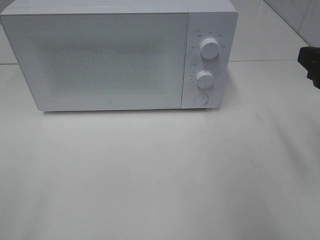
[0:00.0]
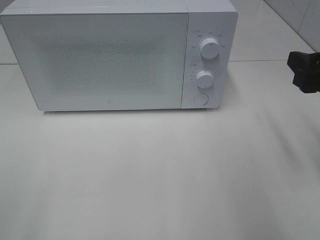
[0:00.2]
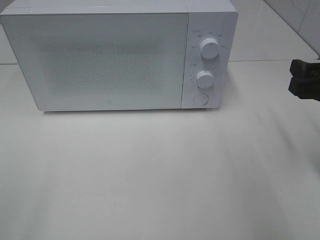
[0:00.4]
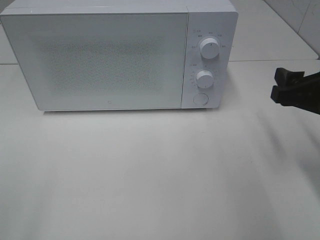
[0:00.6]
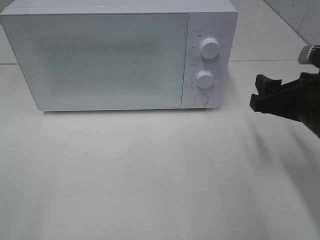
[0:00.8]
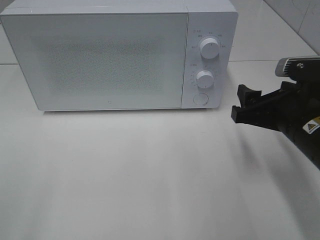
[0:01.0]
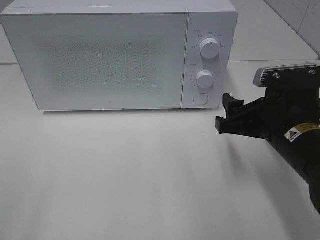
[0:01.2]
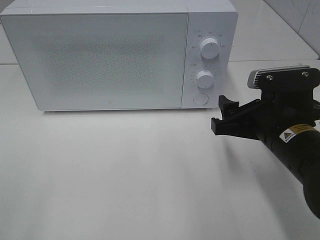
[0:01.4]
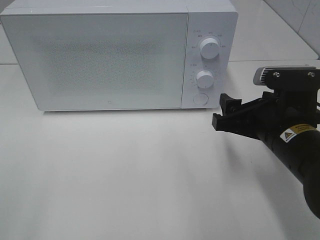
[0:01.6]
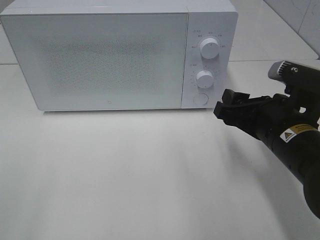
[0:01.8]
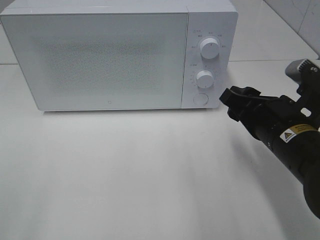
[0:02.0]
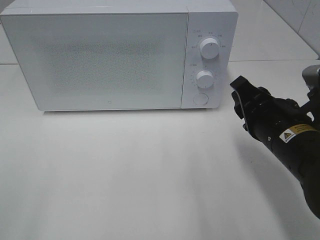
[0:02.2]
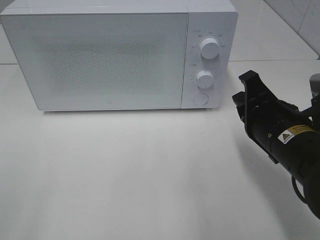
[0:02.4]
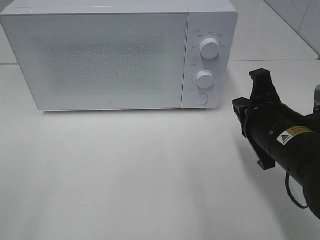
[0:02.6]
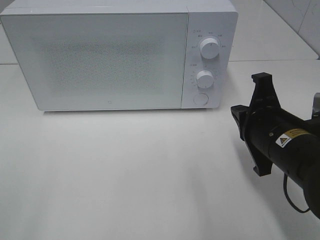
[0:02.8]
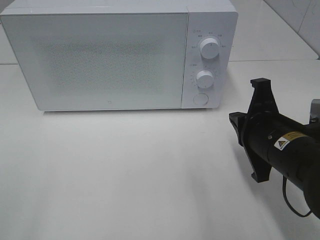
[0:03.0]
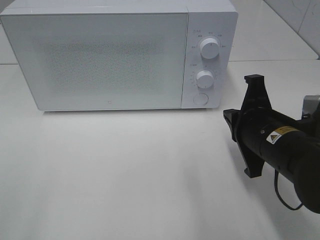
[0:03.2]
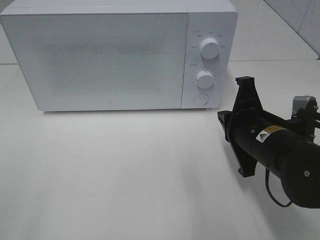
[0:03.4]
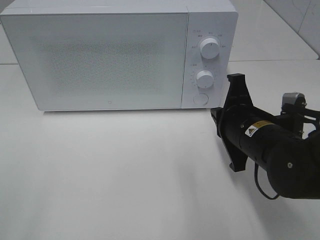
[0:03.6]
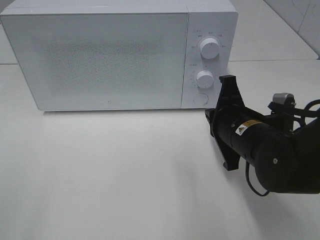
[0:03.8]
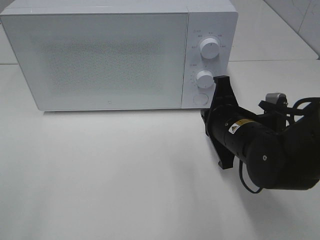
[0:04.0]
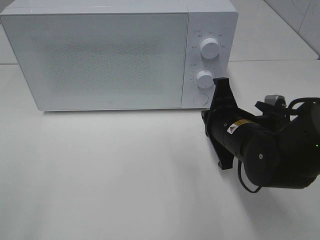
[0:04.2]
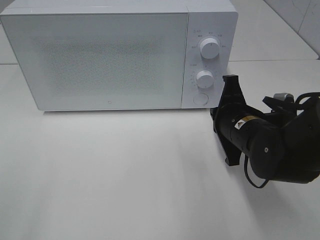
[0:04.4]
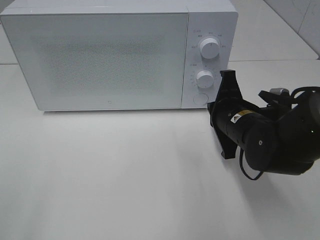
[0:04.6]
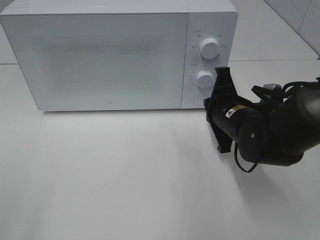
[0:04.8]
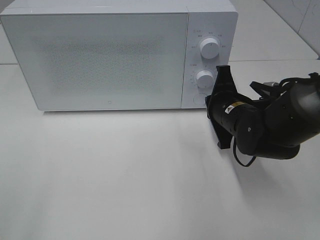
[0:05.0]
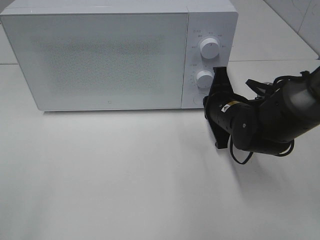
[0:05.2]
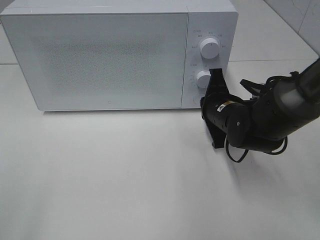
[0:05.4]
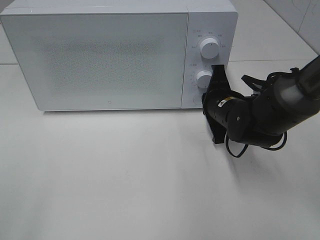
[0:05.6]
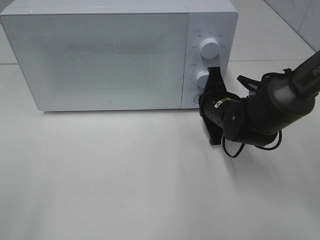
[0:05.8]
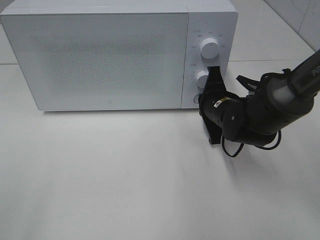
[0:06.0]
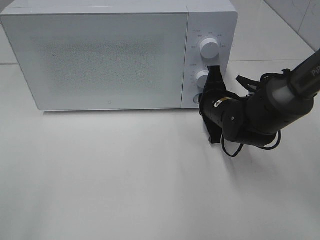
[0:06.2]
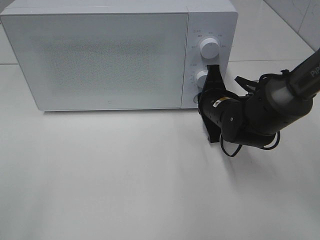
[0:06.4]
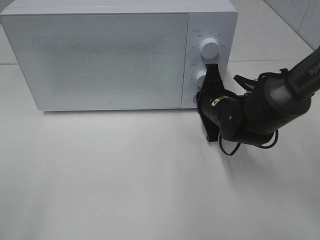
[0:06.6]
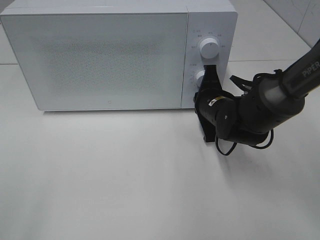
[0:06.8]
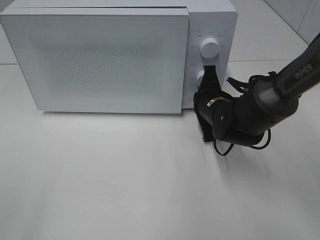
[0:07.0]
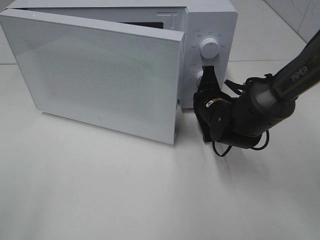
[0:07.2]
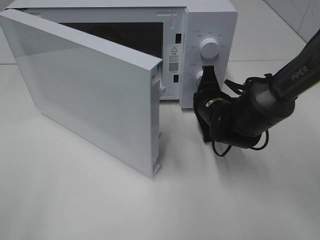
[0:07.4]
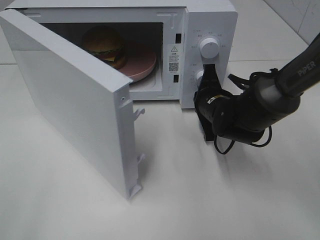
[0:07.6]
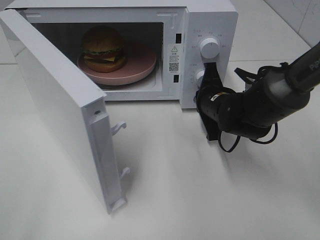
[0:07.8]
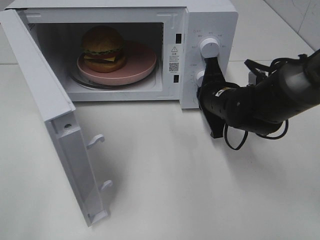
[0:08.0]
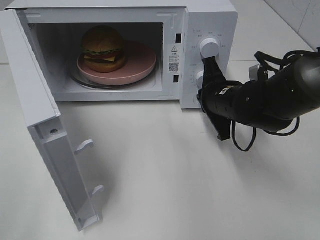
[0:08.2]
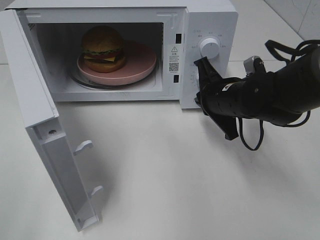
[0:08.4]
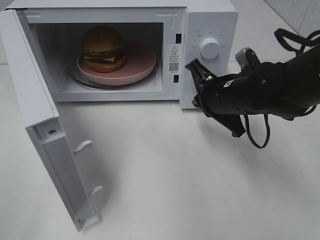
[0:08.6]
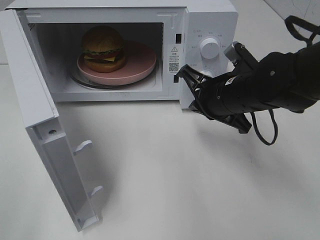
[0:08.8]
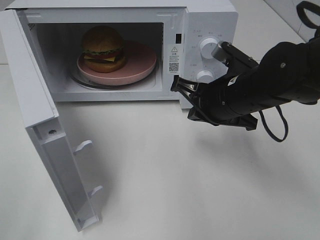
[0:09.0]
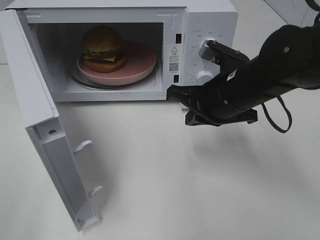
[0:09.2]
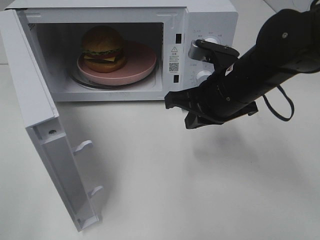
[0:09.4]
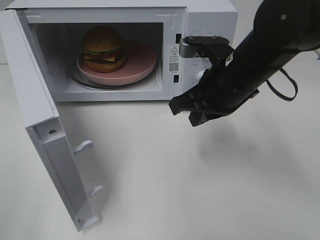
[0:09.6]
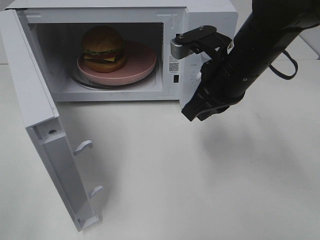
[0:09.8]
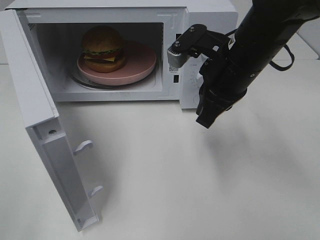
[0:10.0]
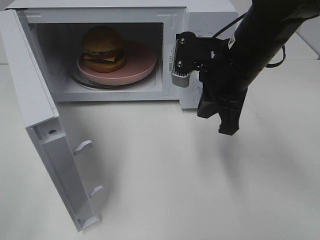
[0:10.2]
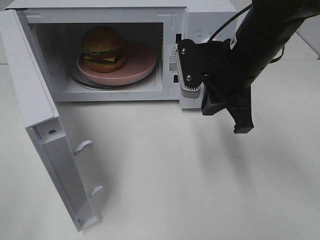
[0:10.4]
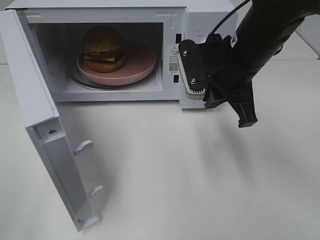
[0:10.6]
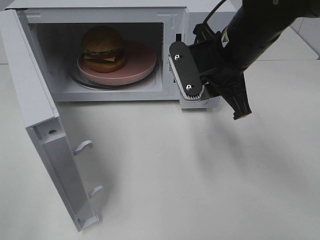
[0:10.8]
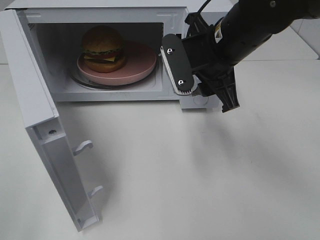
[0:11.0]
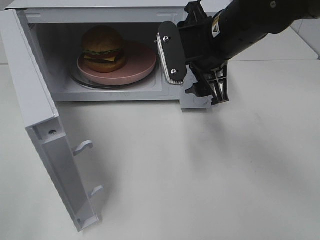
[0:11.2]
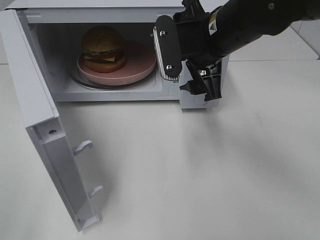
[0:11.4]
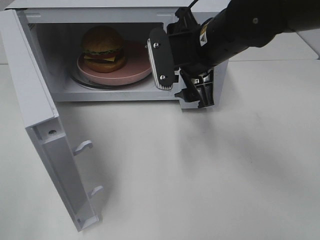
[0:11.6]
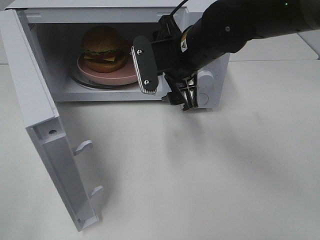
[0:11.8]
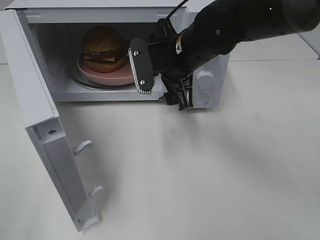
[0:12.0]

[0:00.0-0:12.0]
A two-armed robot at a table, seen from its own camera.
Task of the whole recording: Heat the burger.
Step, 0:00.0 to 0:08.2: Right hand: press the switch.
0:00.0 to 0:01.6: The right gripper shifts about 15 cm downward and to the left.
0:01.6 to 0:03.0: The right gripper closes its fingers.
0:03.0 to 0:04.4: The right gripper goes some 5 cm forward.
0:04.4 to 0:06.0: The right gripper moves forward, roughly 10 cm.
0:07.6 to 0:09.0: The right gripper travels upward and backward by about 10 cm.
0:09.0 to 0:10.4: The right gripper goes about 5 cm upward.
0:10.4 to 0:12.0: The right gripper is displaced to the left by some 5 cm, and opens.

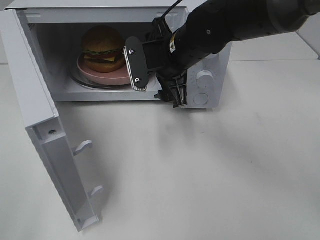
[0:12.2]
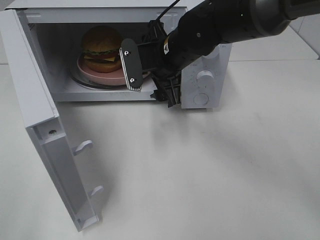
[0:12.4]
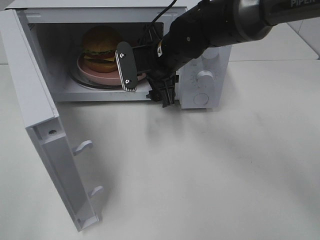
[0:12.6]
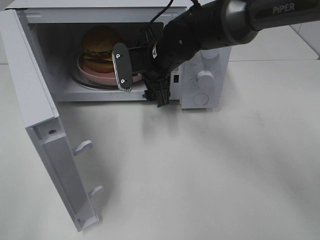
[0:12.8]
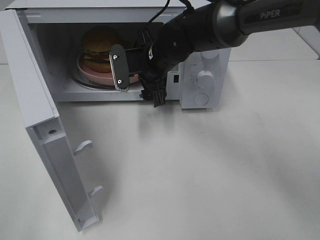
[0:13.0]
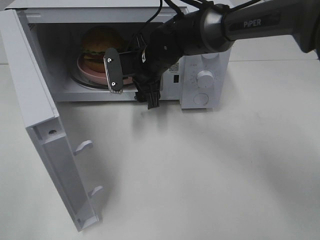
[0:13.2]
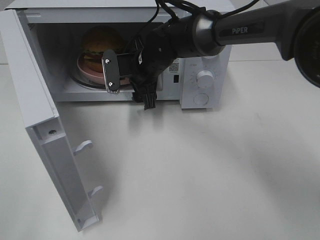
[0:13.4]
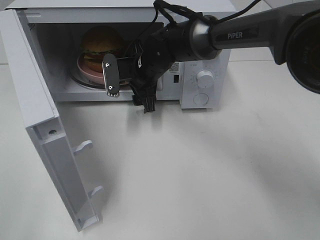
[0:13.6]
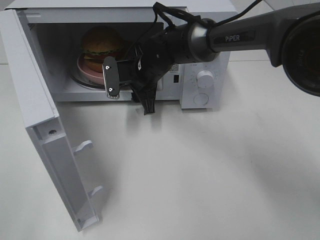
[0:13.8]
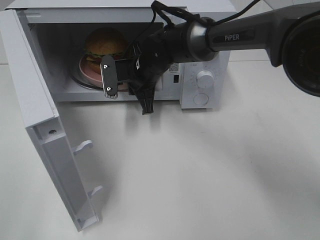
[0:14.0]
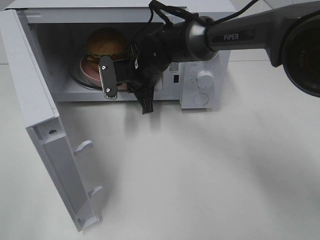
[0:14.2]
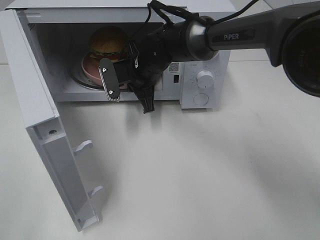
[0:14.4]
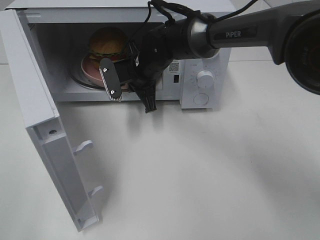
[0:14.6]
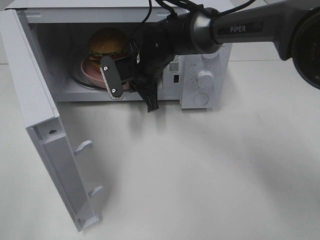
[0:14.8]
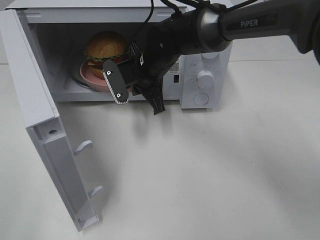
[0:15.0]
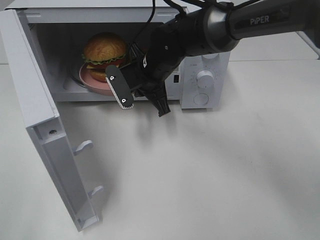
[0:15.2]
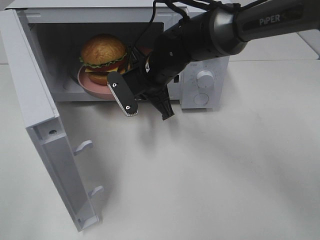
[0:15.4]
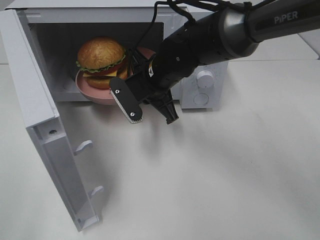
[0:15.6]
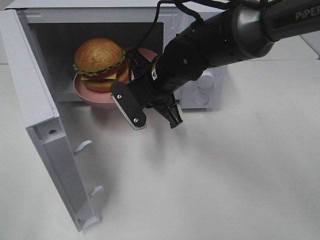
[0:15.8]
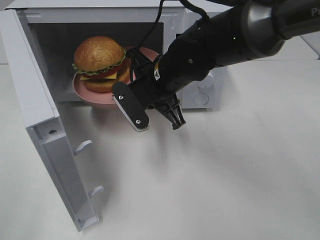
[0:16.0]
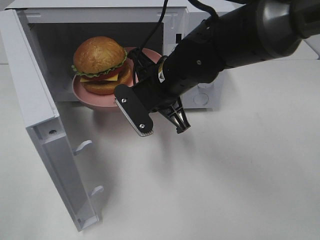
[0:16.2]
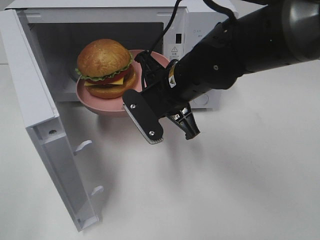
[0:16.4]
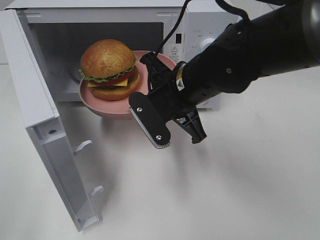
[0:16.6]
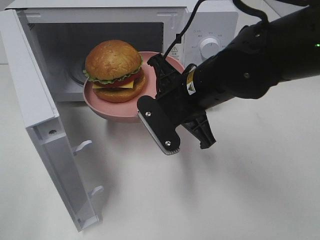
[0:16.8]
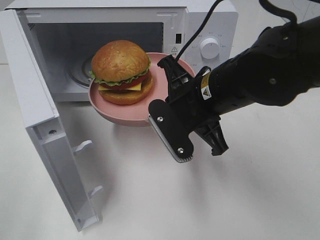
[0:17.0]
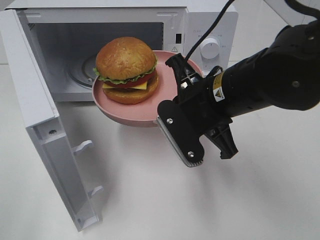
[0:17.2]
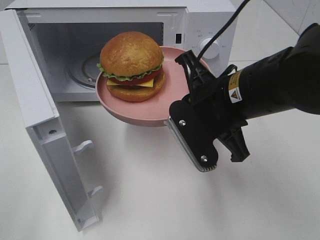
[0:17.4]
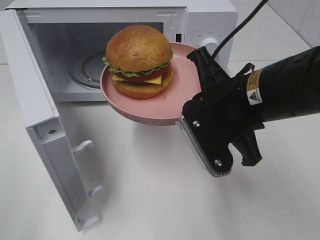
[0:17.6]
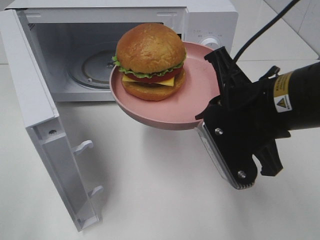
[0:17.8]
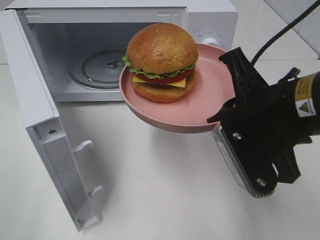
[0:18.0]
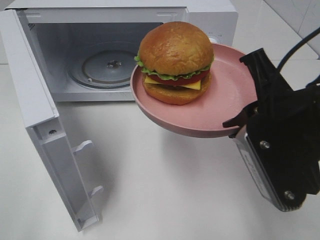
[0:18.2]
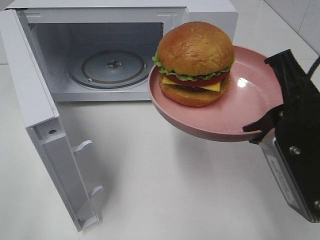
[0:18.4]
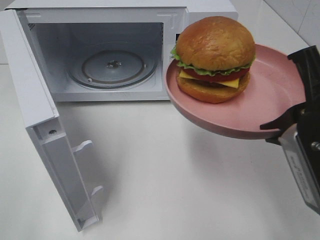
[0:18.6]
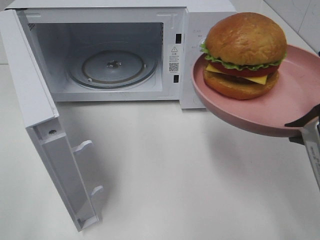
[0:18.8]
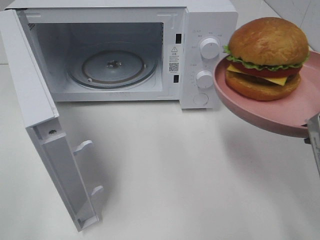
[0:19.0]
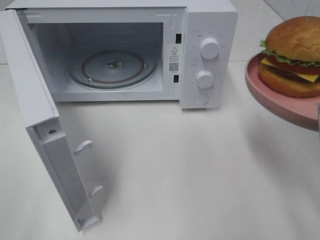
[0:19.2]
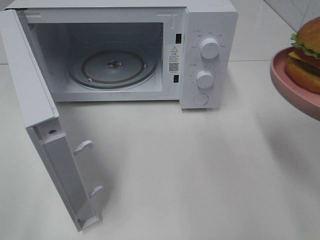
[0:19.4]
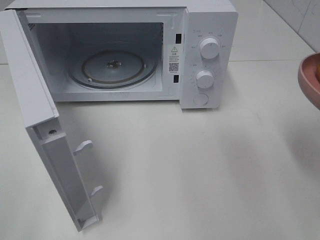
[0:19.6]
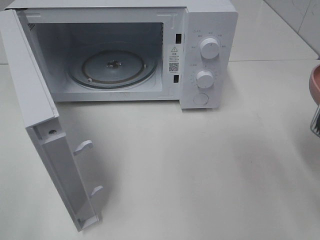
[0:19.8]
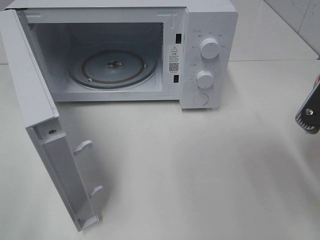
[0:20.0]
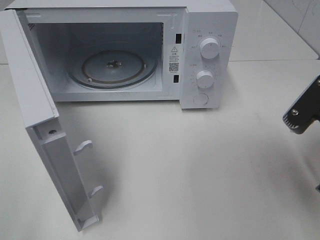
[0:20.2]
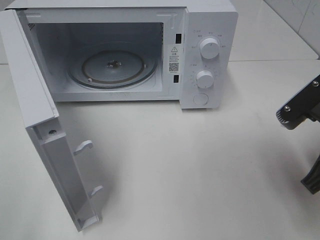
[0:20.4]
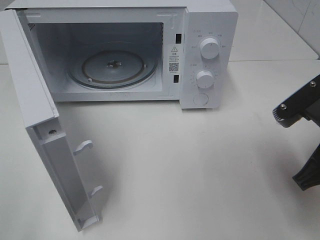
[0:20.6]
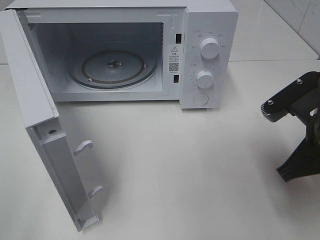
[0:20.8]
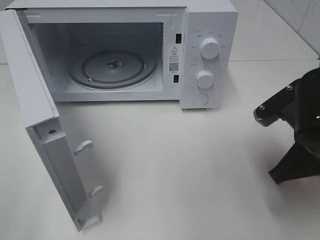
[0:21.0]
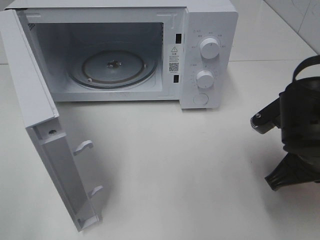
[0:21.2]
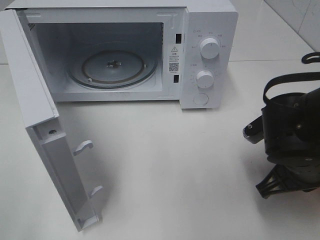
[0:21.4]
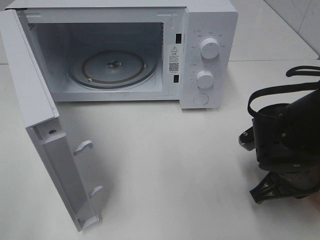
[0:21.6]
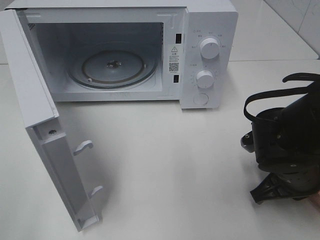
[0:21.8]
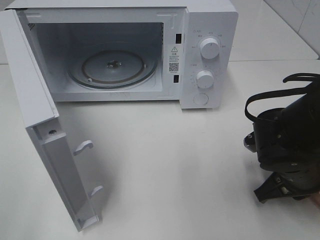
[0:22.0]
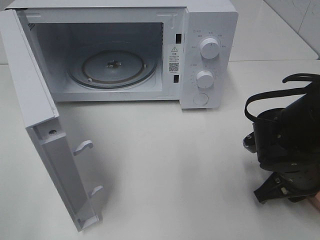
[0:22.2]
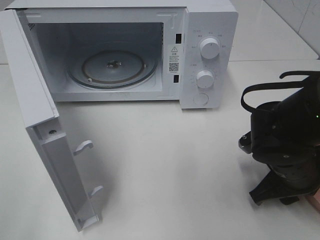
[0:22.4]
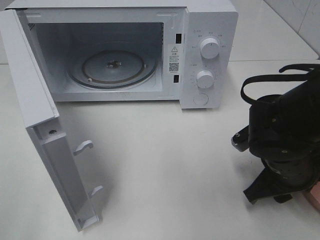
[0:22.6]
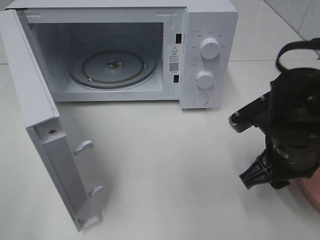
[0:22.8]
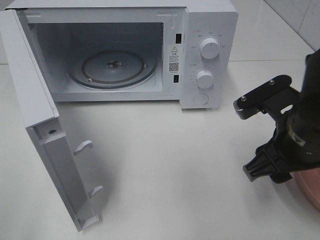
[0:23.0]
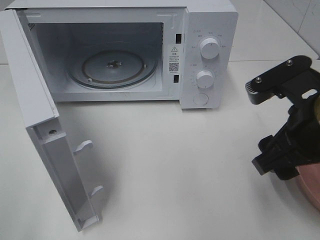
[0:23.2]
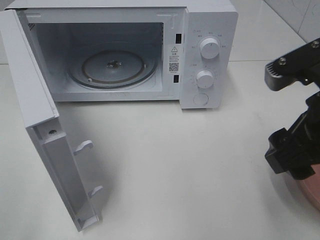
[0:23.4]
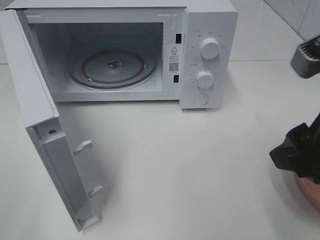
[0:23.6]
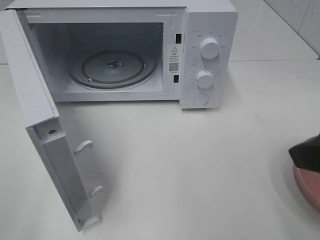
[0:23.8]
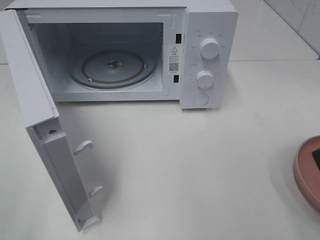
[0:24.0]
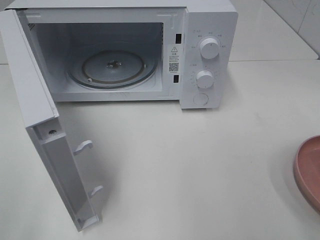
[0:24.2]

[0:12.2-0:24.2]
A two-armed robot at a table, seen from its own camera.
Task of the whole recording: Heat the burger.
Step, 0:12.2 to 0:14.2: Right hand: grab the plate with the hamburger.
Step, 0:14.4 to 0:22.6: Right hand: place the plate on the table.
0:12.2 to 0:13.8: The right gripper is displaced downward, forward and to the left by roughly 10 cm, and closes its fingers.
0:13.8 to 0:15.2: The right gripper closes up.
0:15.2 to 0:16.6: The right gripper travels backward by roughly 10 cm.
0:16.6 to 0:18.2: The right gripper heads backward, to the right and upward, covering approximately 20 cm.
0:18.2 to 0:19.8: The right gripper travels to the right by about 10 cm.
0:19.8 to 0:21.2: The right gripper moves downward and forward, some 10 cm.
0:21.2 to 0:22.6: The right gripper opens up.
0:22.6 to 0:24.2: The right gripper heads upward and backward, covering roughly 25 cm.
